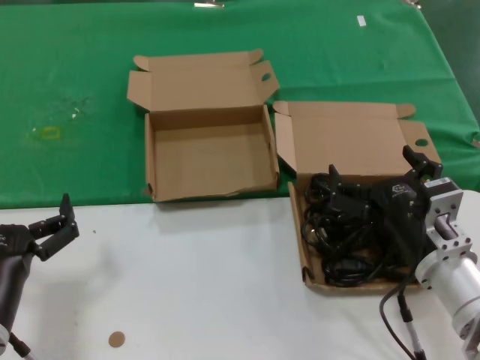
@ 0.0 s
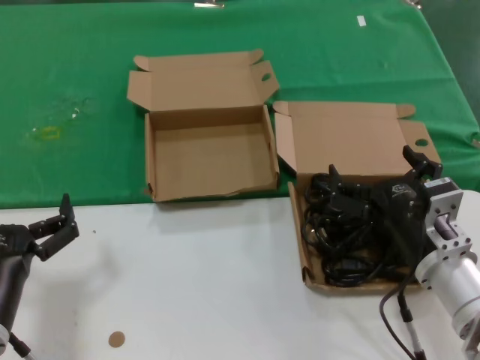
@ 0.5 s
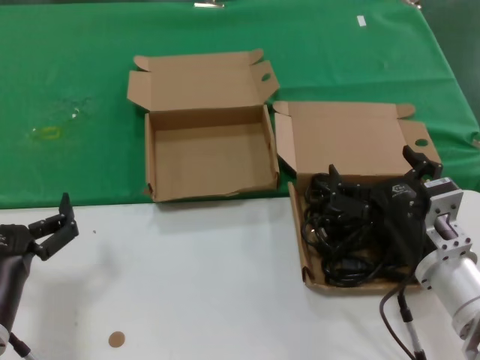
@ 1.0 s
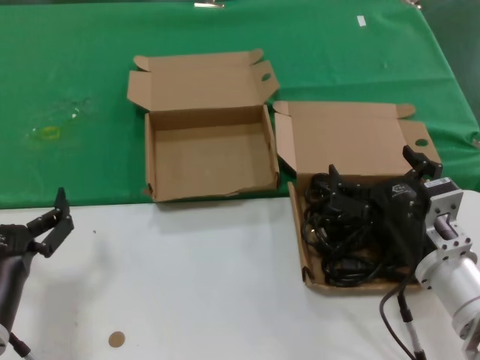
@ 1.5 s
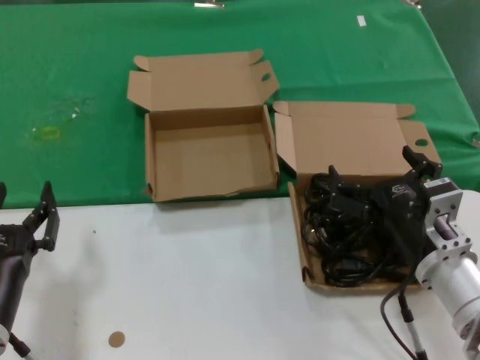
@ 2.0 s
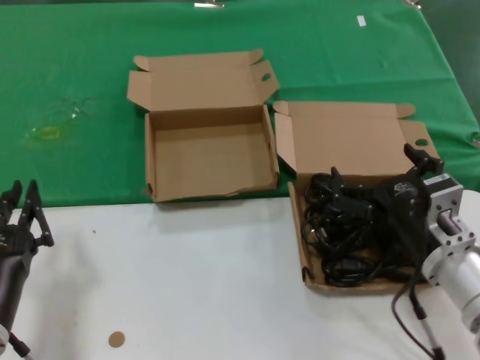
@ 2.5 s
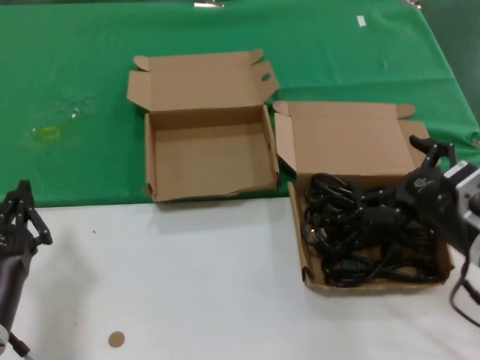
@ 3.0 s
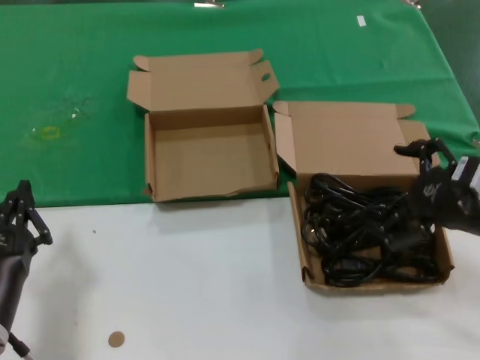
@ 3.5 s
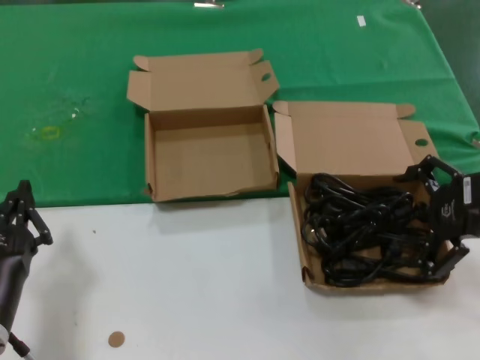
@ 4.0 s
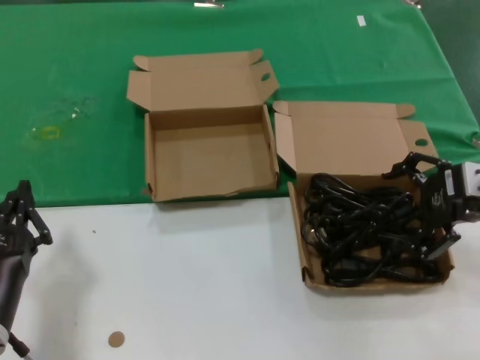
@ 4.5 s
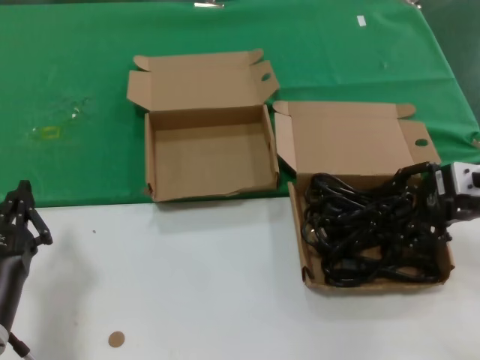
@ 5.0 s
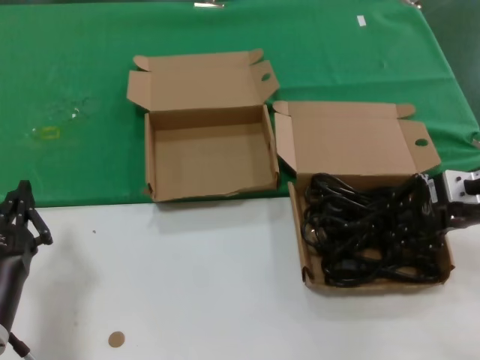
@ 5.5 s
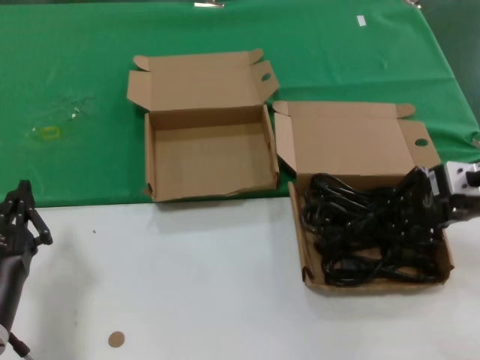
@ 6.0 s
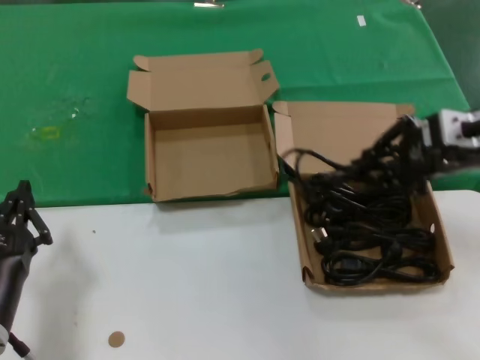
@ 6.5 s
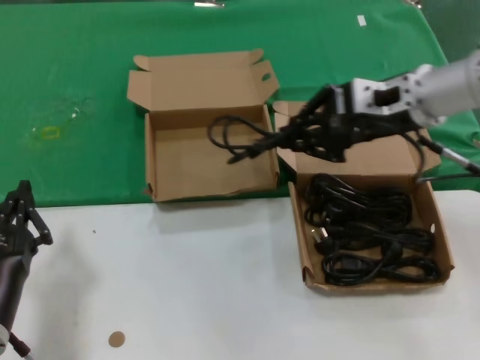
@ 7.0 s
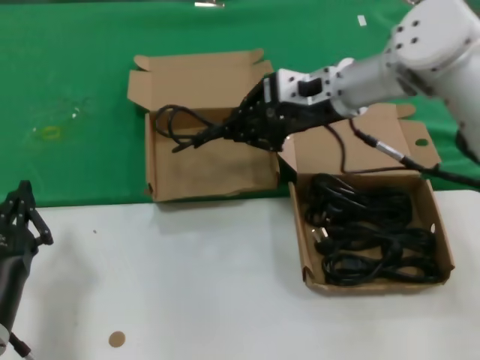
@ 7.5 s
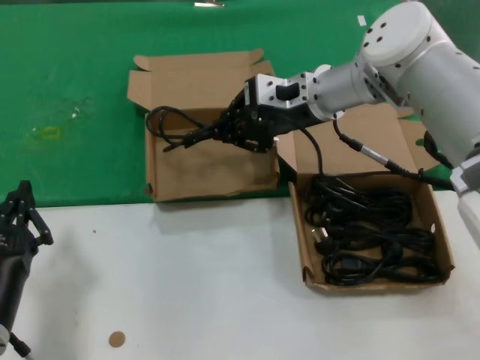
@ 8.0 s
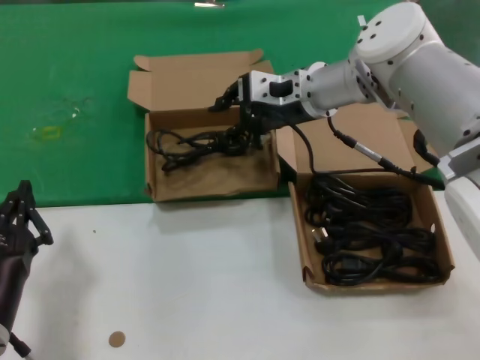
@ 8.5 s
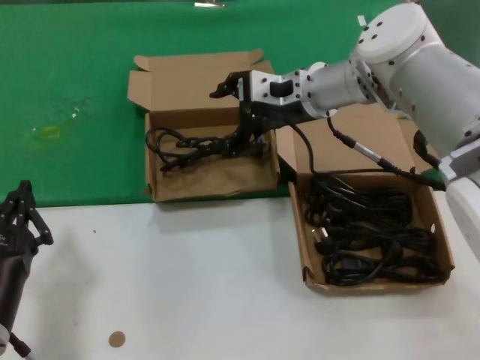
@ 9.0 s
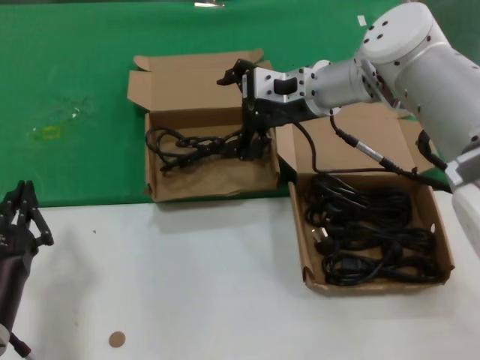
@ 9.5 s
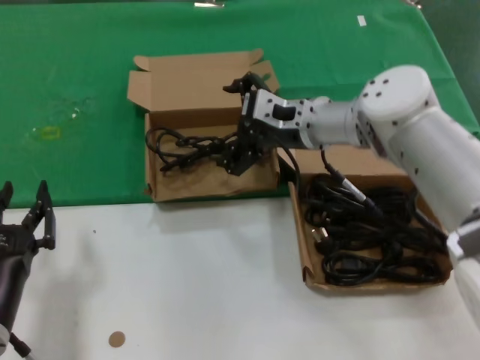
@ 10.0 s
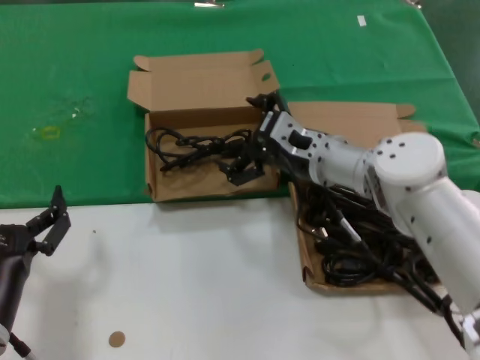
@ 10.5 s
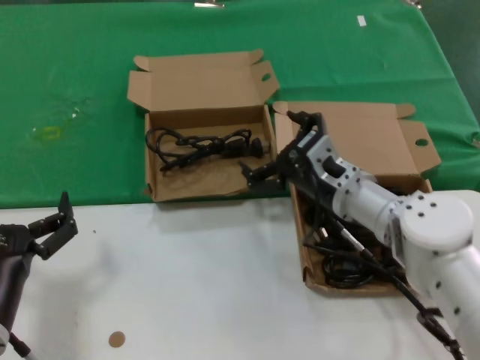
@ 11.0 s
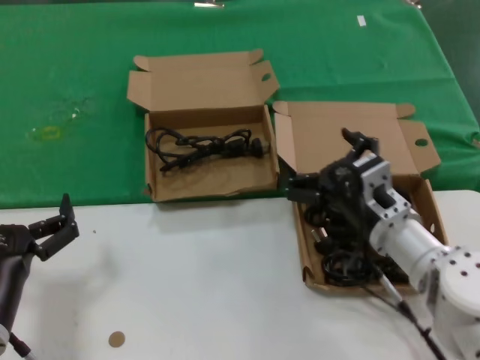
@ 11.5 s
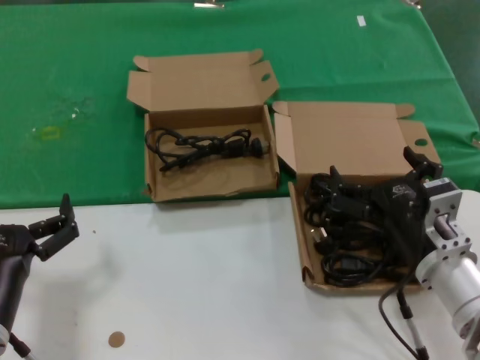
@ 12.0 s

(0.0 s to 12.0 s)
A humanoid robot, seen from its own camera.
Task of the whole recording: take the parts from the box containing them and put them into an empty box.
Step, 0.0 s - 5.5 s: Grasp the data cable.
Step, 6.0 s - 8.5 s: Place the data cable in the another box.
0.0 s - 2.0 s: Both hands stay about where they are.
2.0 s - 4.0 s: The right hand travels to the right and upward by roughly 20 cm.
4.0 s - 6.0 s: The right hand goes some 5 cm forward.
6.0 s - 8.0 s: The right hand is displaced to the left and forward by about 25 cm.
8.0 s - 10.0 s: The right hand goes approximately 5 cm downward.
10.0 s - 12.0 s: The right hand goes approximately 25 cm backward and downward.

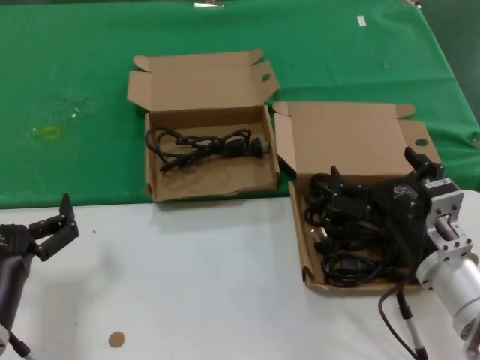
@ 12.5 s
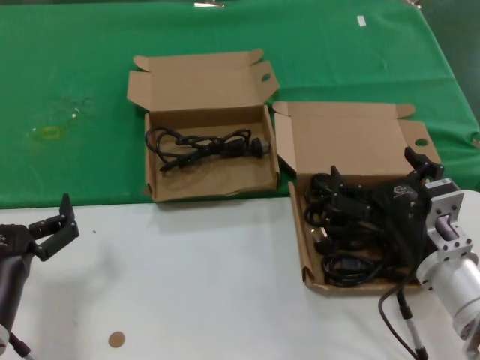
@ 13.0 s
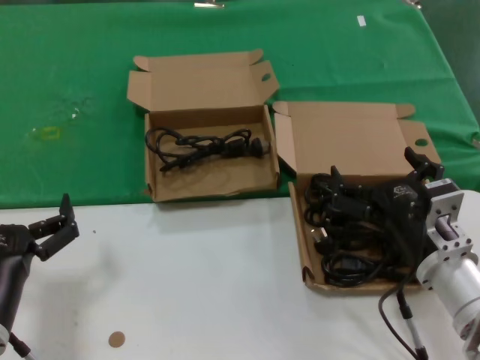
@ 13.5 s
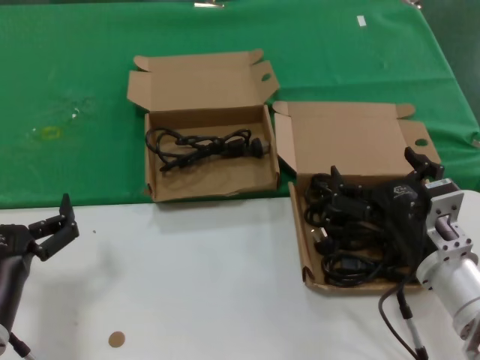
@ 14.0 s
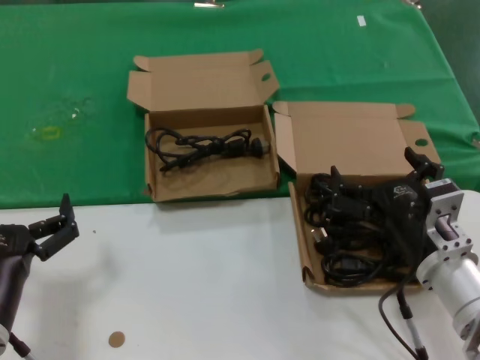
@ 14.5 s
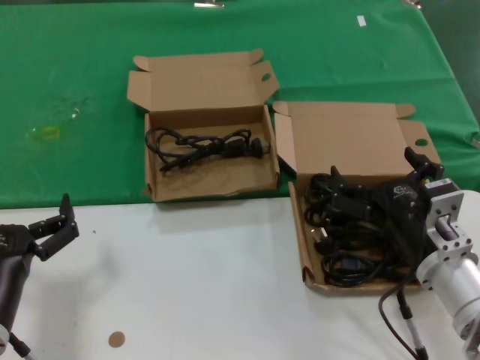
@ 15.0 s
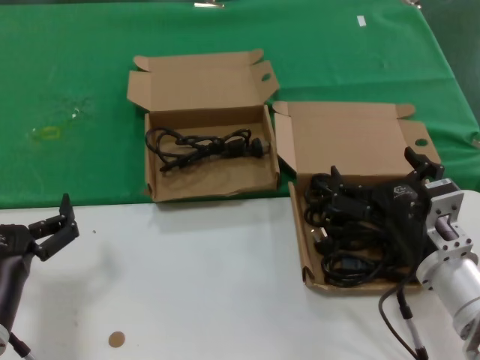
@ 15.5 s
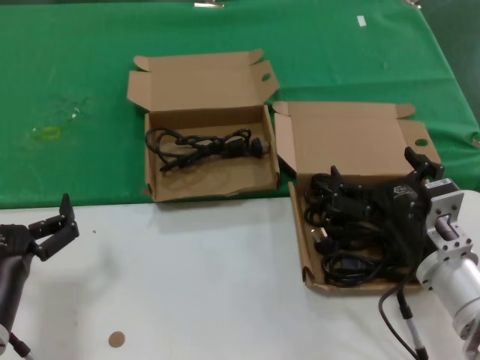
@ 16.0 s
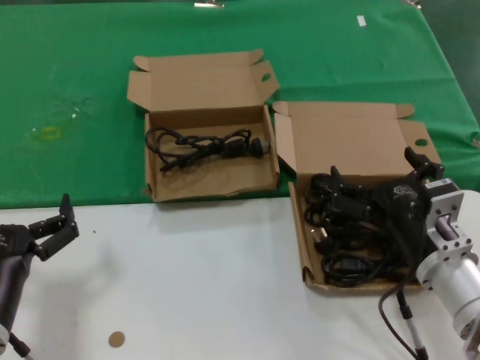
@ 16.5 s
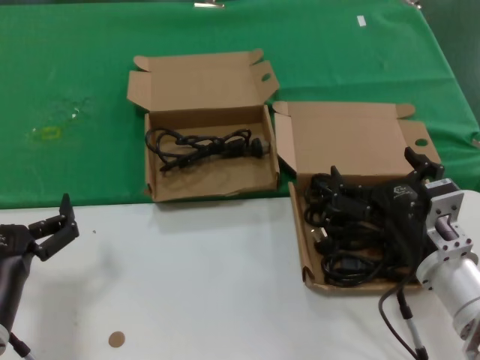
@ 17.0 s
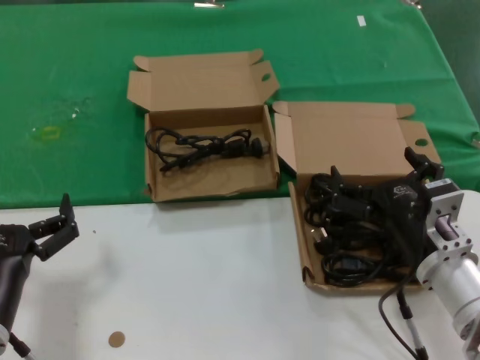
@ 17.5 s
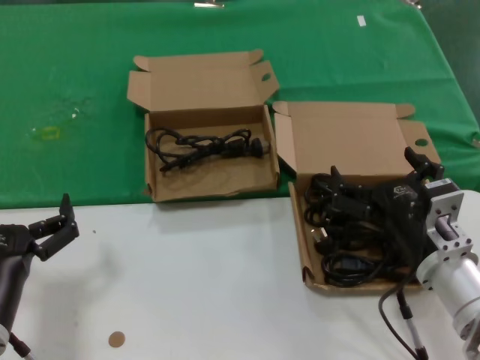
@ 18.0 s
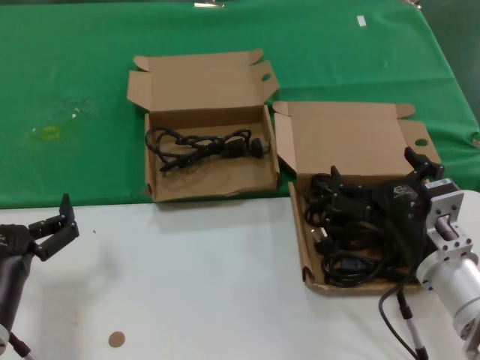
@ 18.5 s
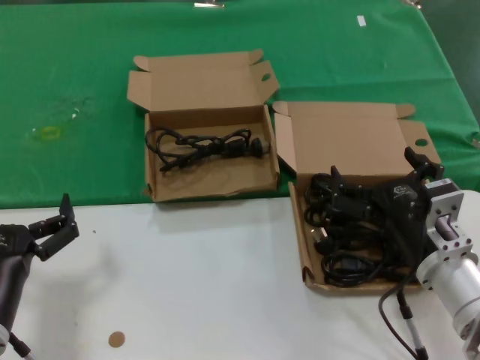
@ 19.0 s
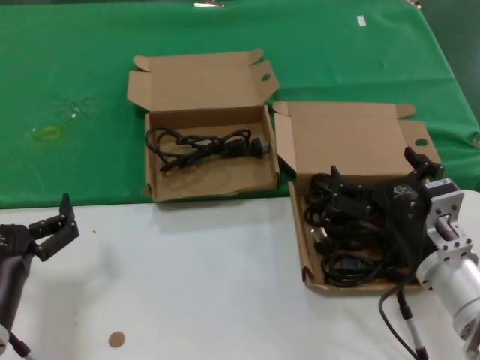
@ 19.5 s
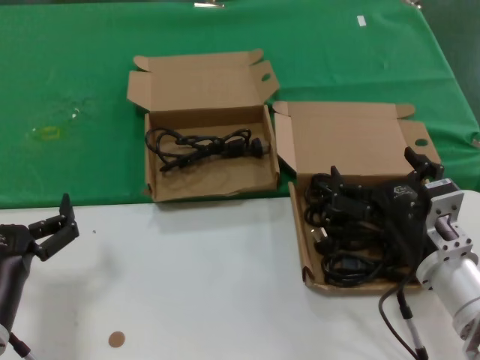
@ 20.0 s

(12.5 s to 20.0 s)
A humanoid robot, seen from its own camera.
Task of the whole recording: take the parts from the box containing them and put them into an empty box.
12.5 s - 20.0 s: Neither hand changes place.
